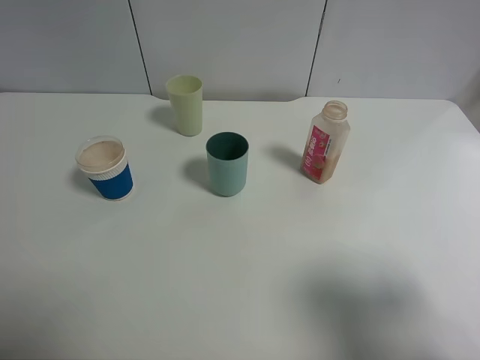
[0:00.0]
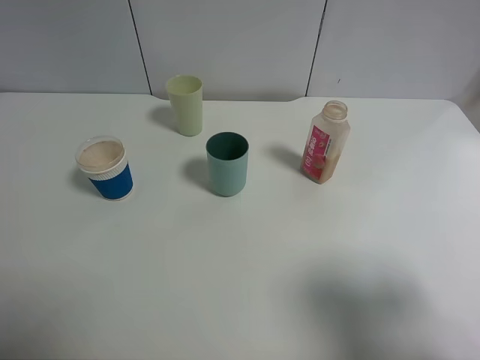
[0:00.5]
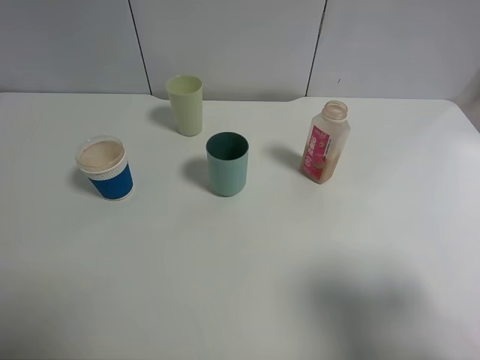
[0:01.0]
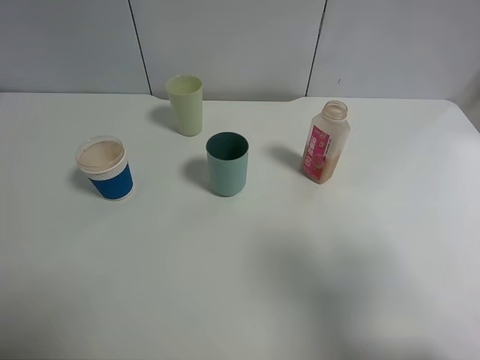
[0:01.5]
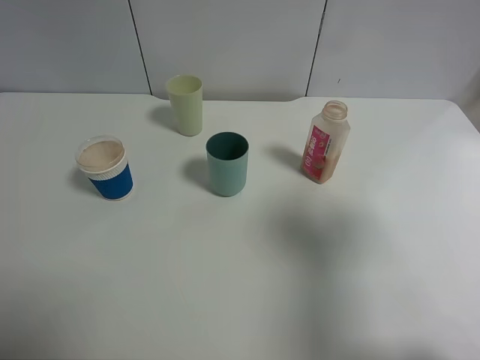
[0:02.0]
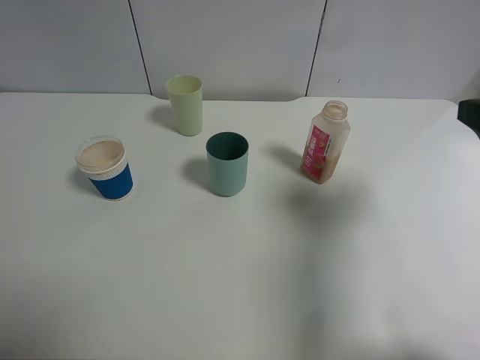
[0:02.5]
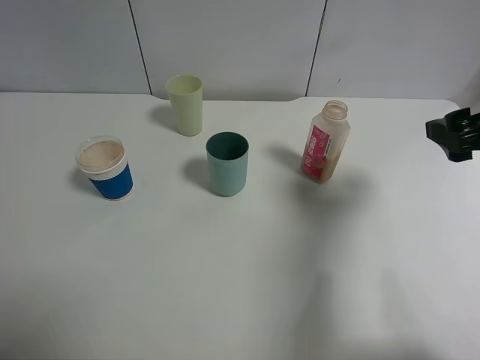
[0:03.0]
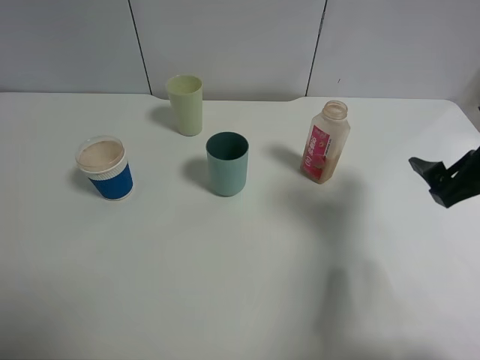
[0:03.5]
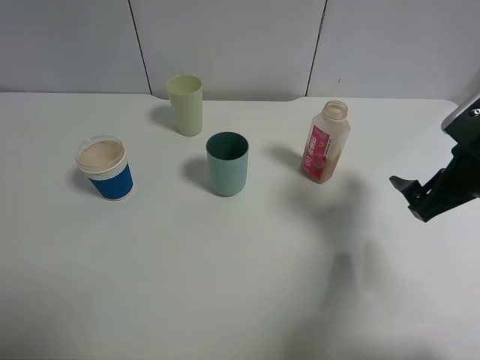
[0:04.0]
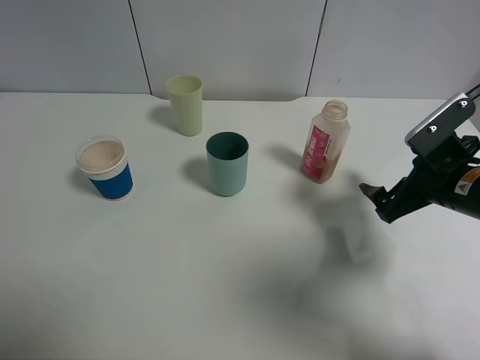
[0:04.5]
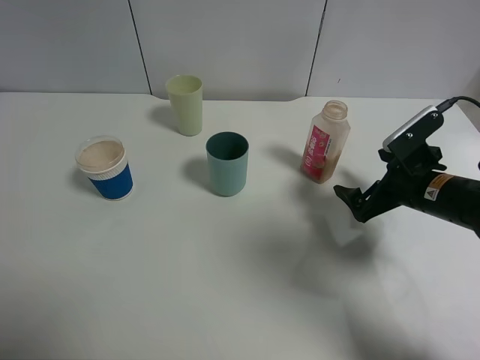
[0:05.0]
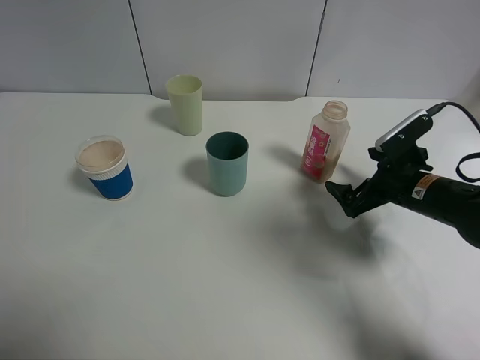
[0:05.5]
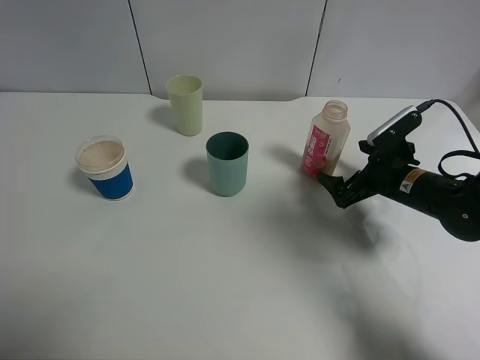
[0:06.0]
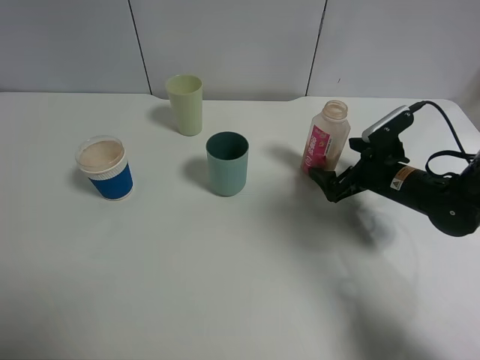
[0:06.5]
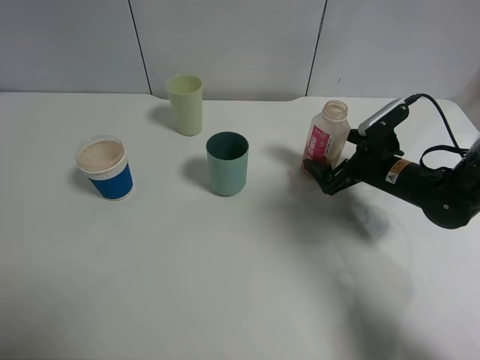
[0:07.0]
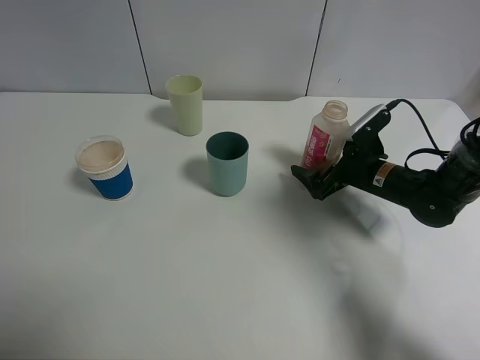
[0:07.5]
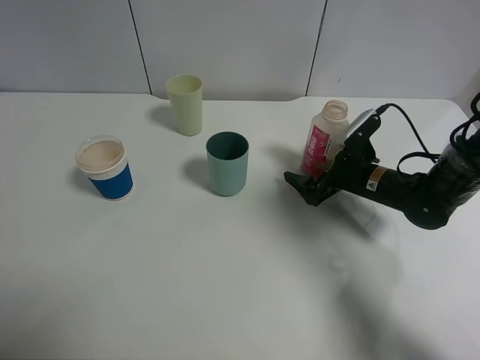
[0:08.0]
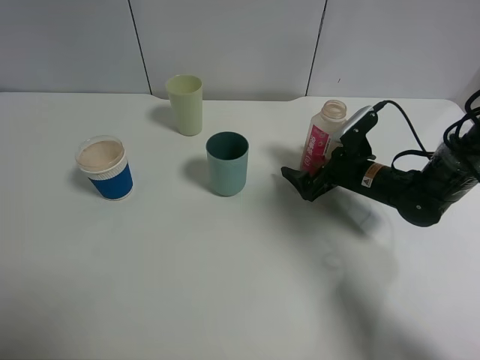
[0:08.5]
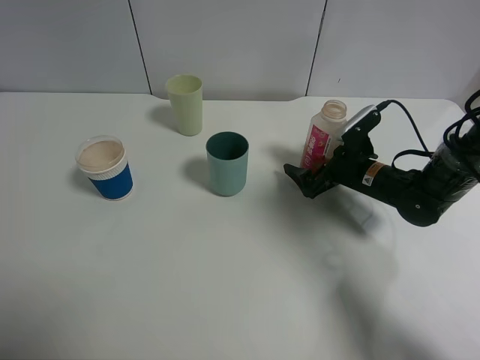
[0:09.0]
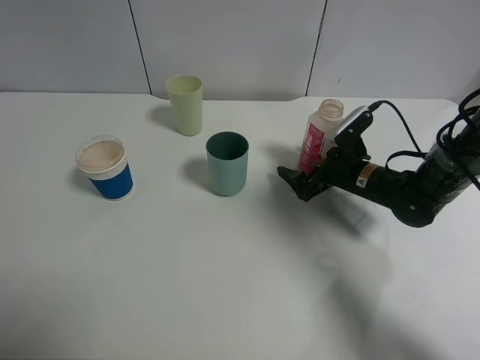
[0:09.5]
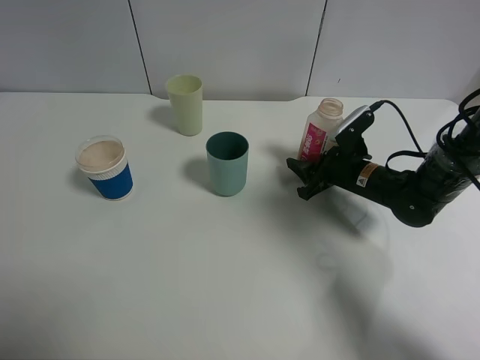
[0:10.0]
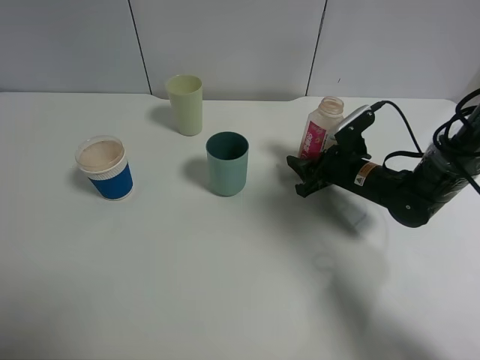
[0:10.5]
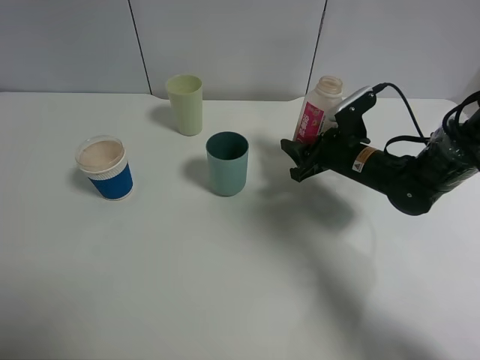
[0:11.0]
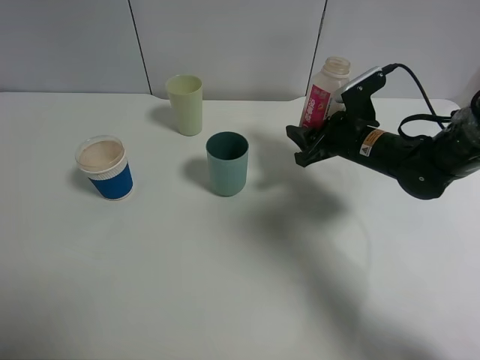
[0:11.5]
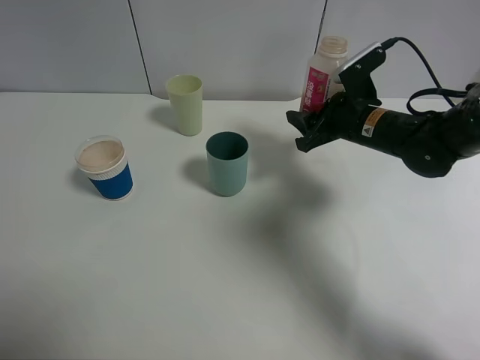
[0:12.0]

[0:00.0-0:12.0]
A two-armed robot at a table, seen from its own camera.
Task of the whole recording: use a clamp to hold the bottle of the drink, pour the beverage into a random cup, then clamp the cup containing the drink and pour the drink into another random cup.
0:00.0 to 0:02.0: The right gripper moves forward, approximately 5 cm.
0:02.0 to 0:04.0: The right gripper heads downward and forward, covering some 15 cm.
0:04.0 to 0:06.0: The right gripper is displaced downward and forward by approximately 15 cm.
0:06.0 to 0:08.0: The right gripper moves approximately 5 cm.
0:08.0 to 0:10.0: The right gripper closes up.
0:10.0 to 0:12.0: The right gripper heads upward, covering about 10 cm.

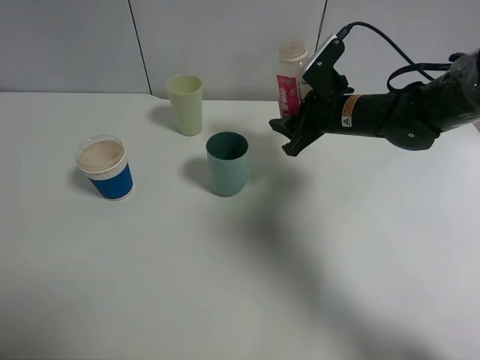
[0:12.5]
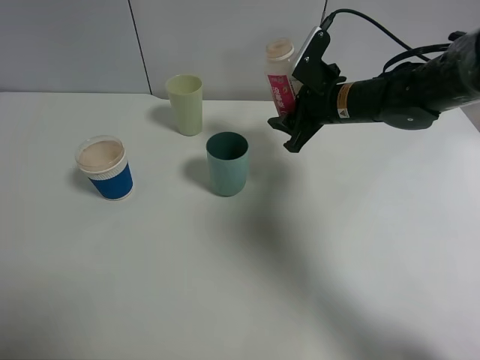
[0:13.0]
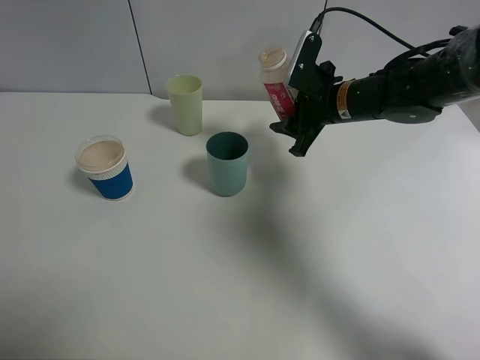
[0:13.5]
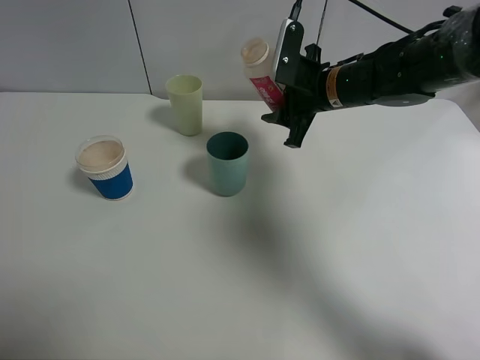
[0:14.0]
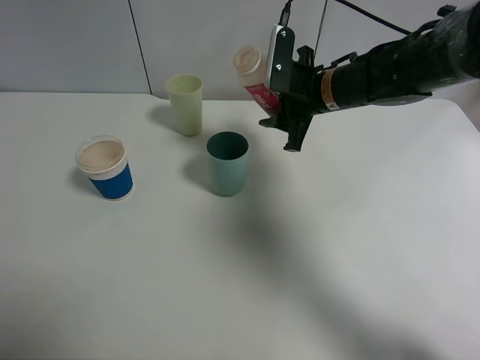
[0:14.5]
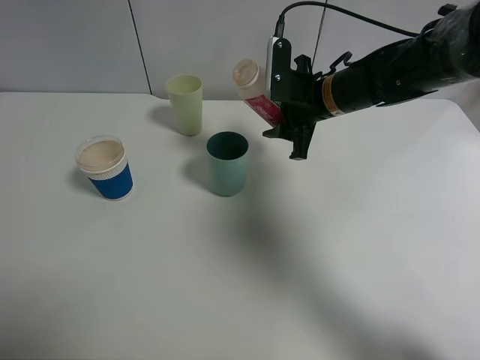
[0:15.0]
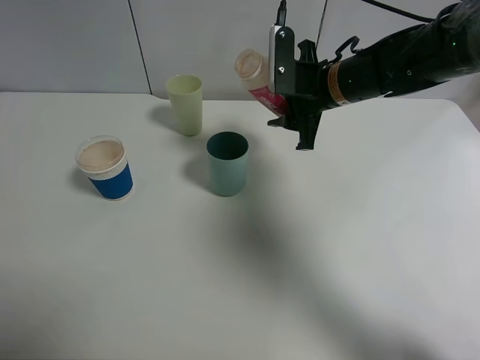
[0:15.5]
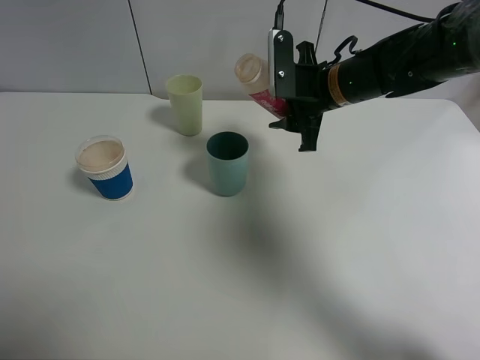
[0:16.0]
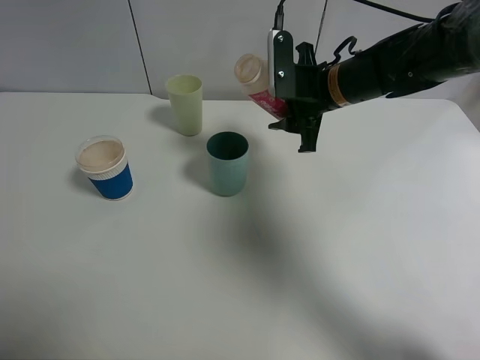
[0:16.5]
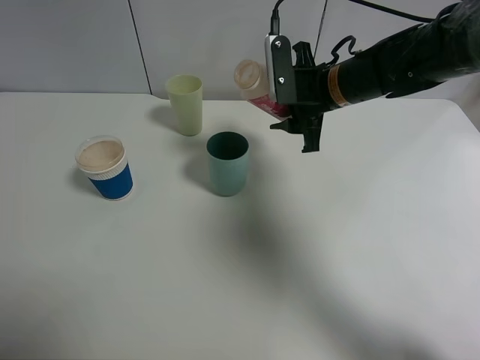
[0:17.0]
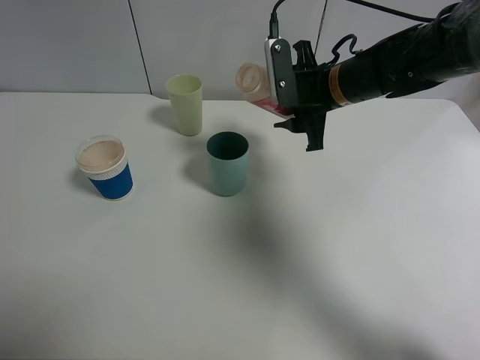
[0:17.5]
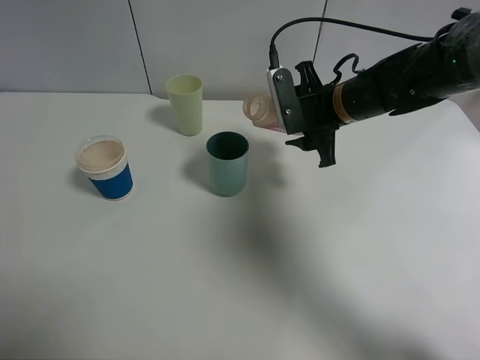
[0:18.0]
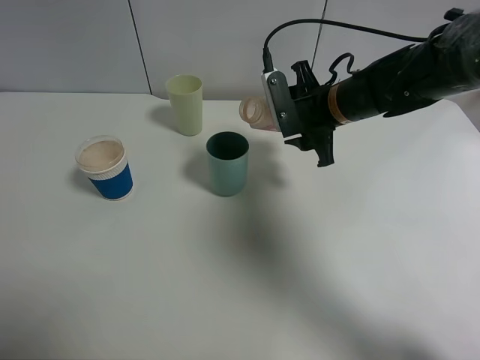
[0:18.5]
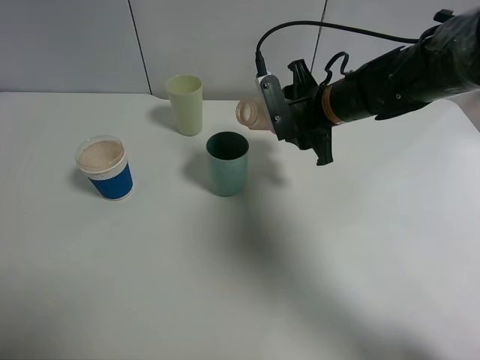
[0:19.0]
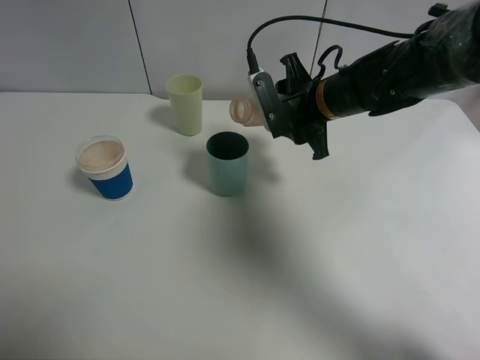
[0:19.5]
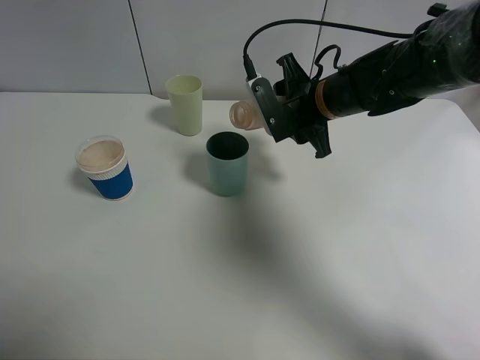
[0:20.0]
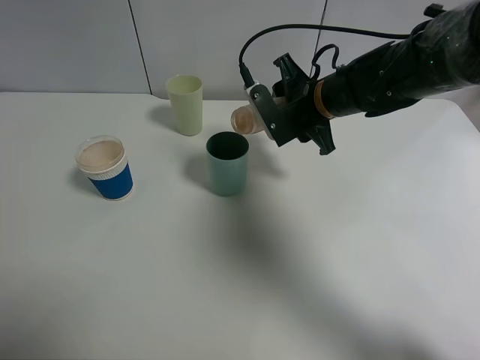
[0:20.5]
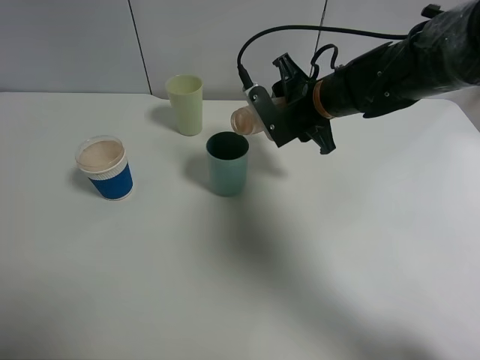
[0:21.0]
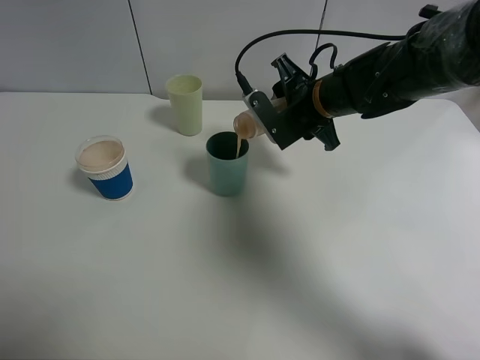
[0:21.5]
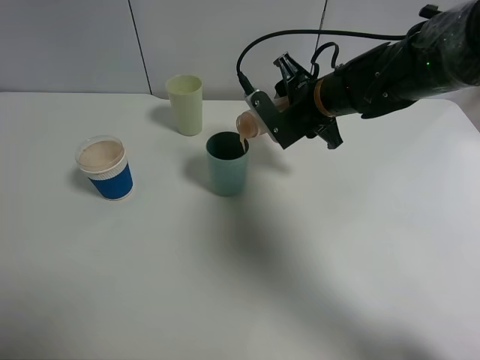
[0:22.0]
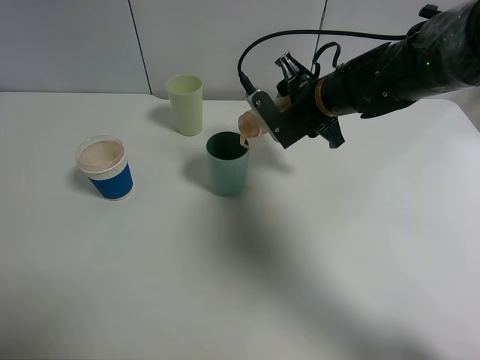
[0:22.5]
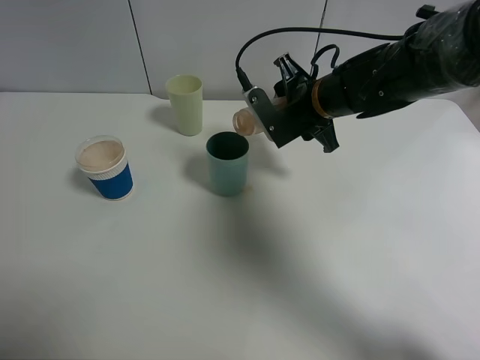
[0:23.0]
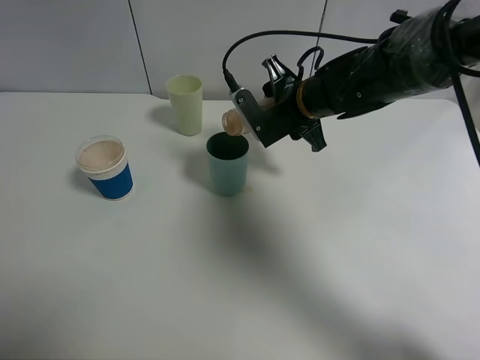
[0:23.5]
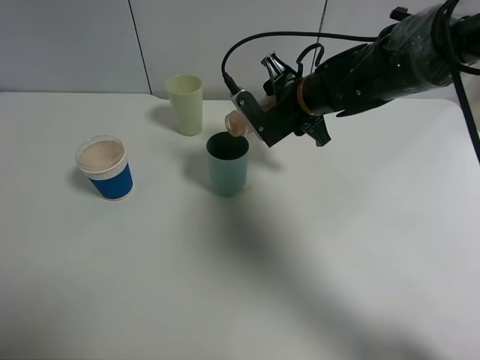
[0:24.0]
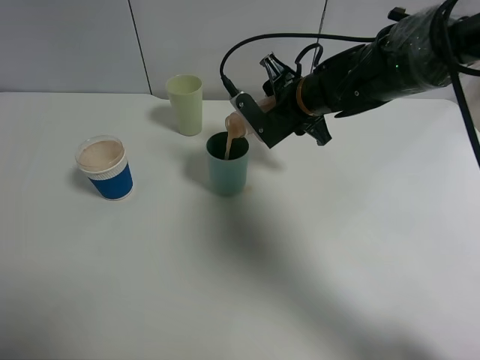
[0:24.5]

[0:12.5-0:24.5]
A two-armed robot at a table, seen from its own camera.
Task of the whole recording: use a clamp to hold the bottle of the drink, pour the beverage into a random cup, then clamp the cup containing the drink and pour the drink into another random cup.
0:14.5 to 0:16.5: The grippers move only a little.
0:16.5 to 0:18.5: The grippers make only small movements.
0:18.5 to 0:20.5: The grippers make only small movements.
0:20.5 to 0:24.5: There are only small adjustments of the grippers.

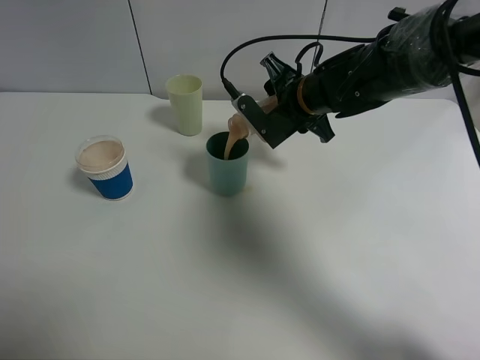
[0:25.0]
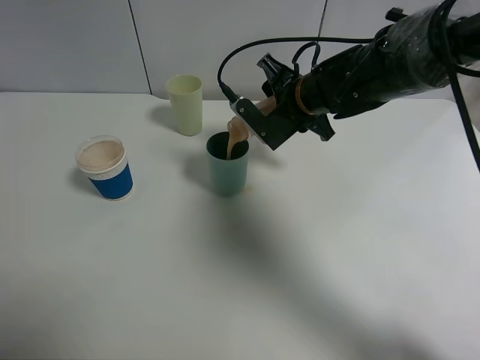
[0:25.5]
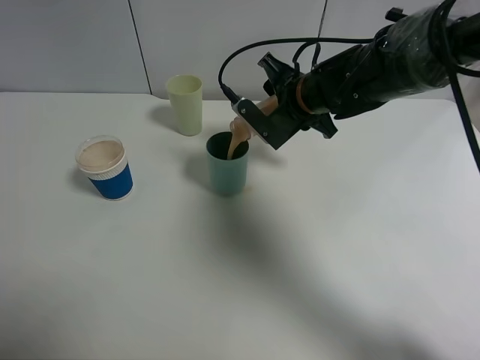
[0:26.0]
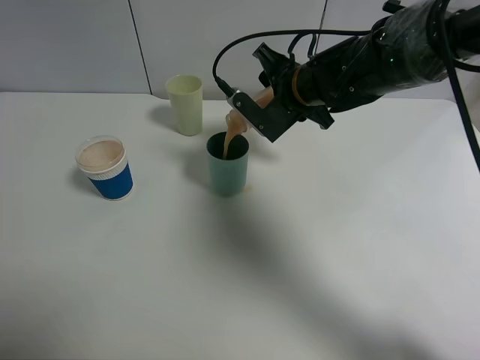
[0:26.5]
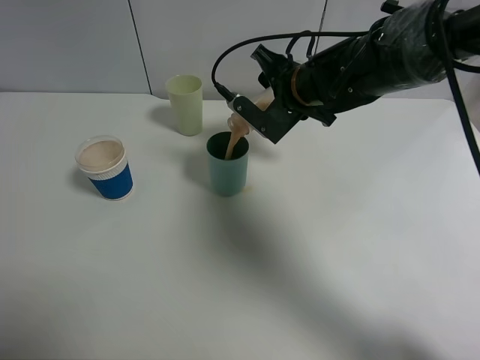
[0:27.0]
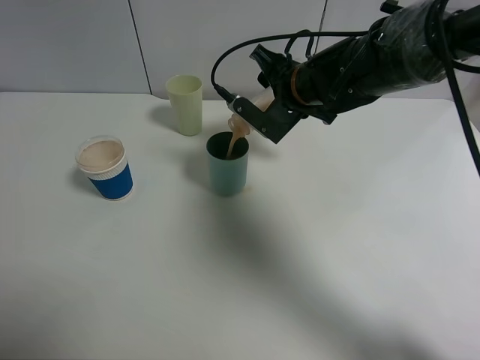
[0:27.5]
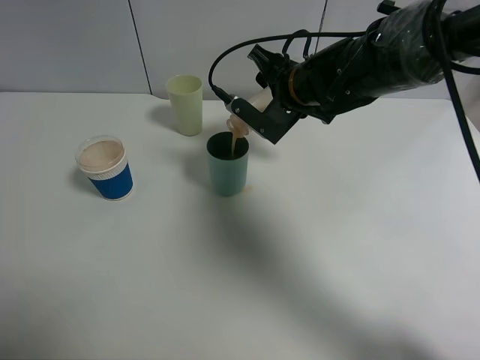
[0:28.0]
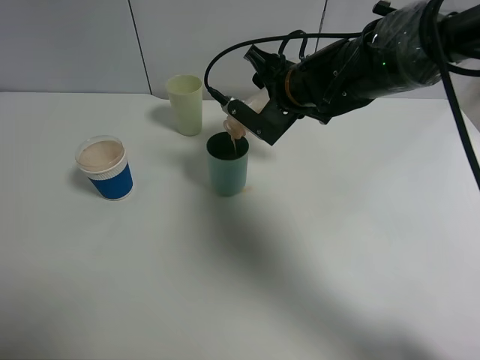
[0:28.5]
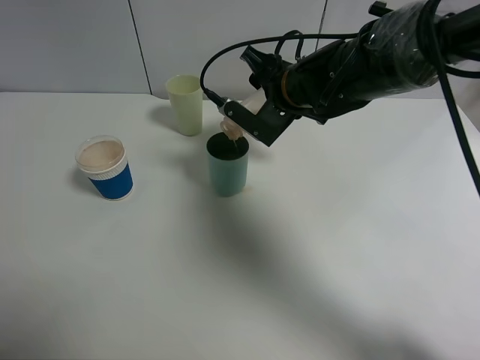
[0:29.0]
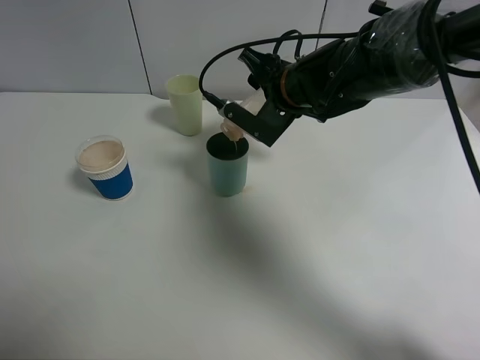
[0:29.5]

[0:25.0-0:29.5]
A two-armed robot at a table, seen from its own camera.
Task of the whole recording: use a clamp to hold the bottle of the drink, pour the beverage into a random cup, then clamp the cup containing the drink and pour the drink into another random cup.
0:25.0 to 0:29.5: The grippers stay close to where they were, moving slightly.
